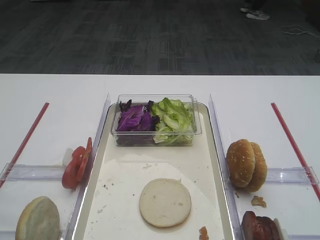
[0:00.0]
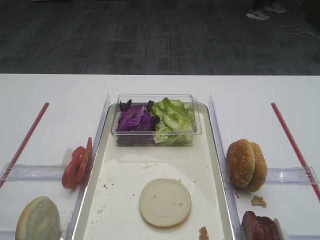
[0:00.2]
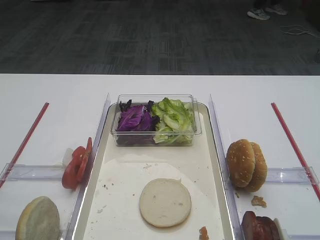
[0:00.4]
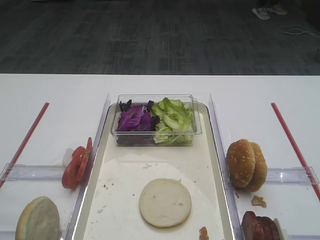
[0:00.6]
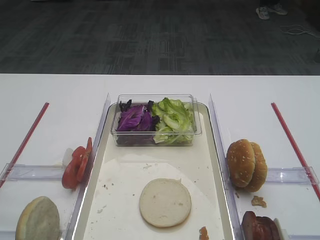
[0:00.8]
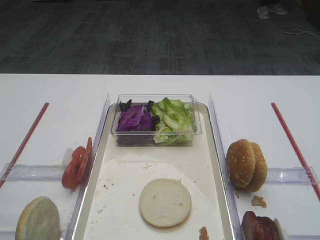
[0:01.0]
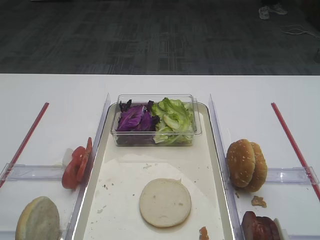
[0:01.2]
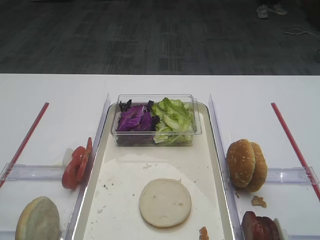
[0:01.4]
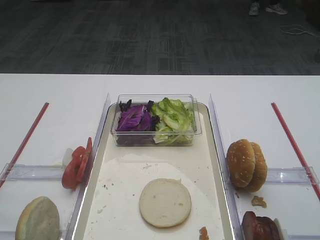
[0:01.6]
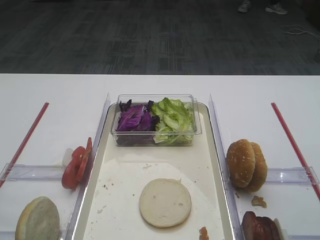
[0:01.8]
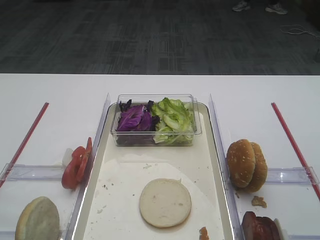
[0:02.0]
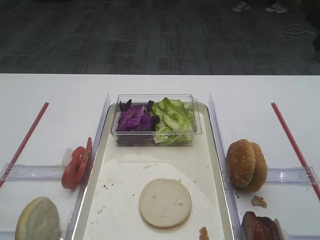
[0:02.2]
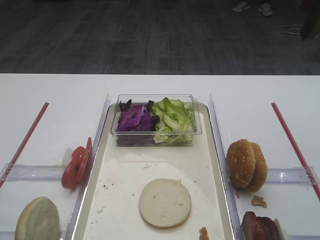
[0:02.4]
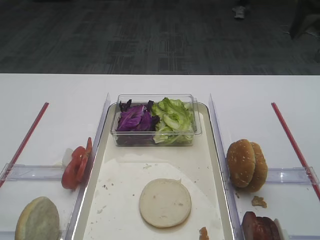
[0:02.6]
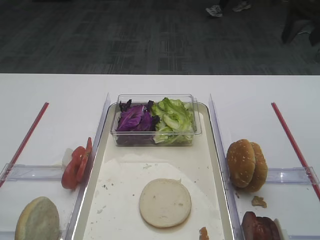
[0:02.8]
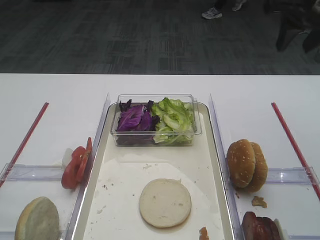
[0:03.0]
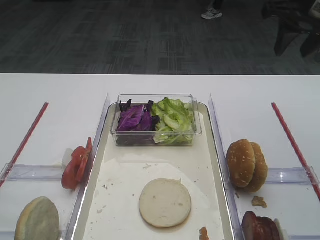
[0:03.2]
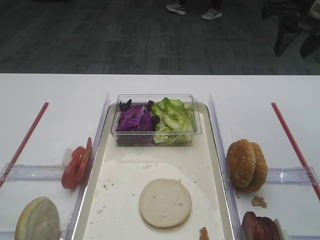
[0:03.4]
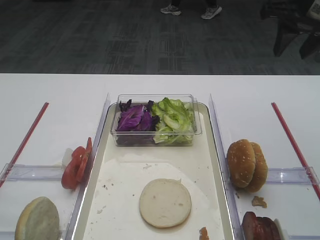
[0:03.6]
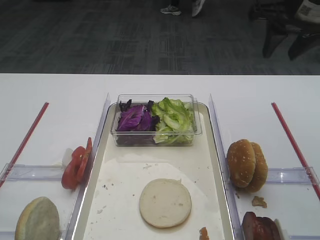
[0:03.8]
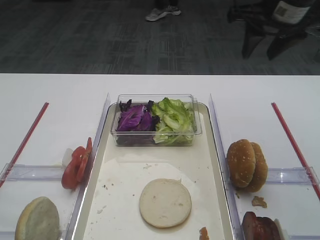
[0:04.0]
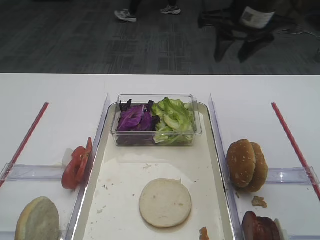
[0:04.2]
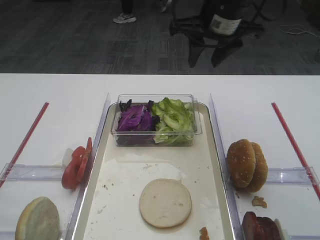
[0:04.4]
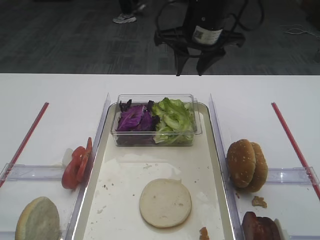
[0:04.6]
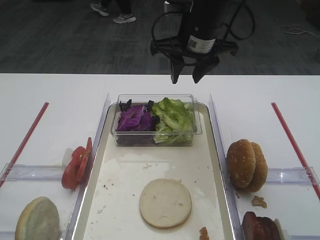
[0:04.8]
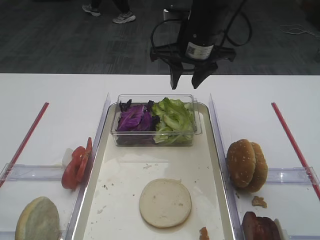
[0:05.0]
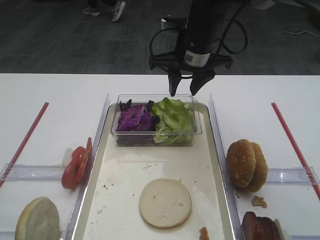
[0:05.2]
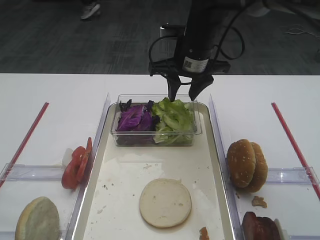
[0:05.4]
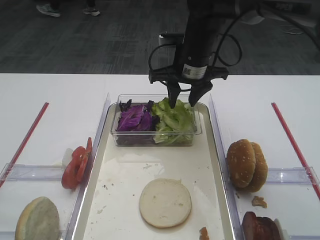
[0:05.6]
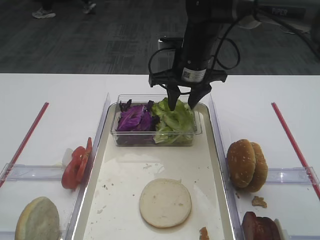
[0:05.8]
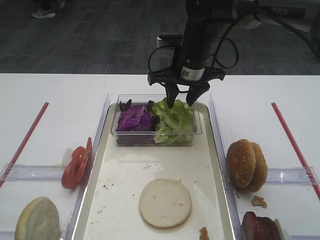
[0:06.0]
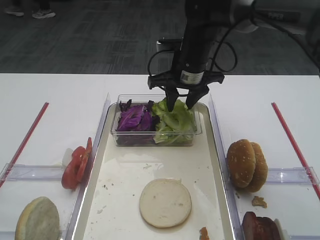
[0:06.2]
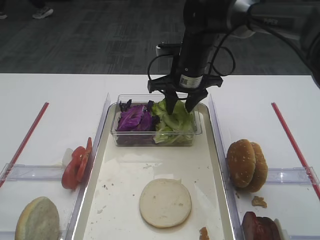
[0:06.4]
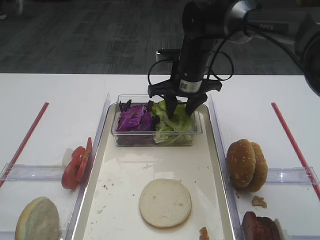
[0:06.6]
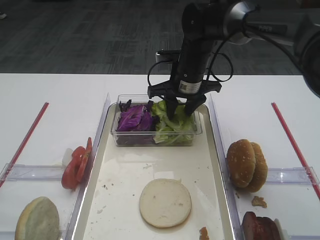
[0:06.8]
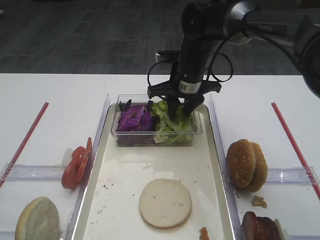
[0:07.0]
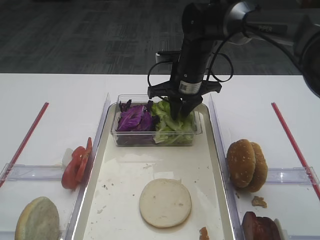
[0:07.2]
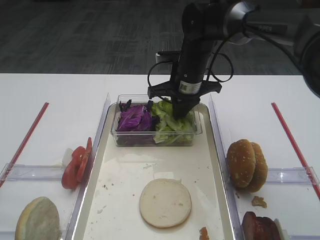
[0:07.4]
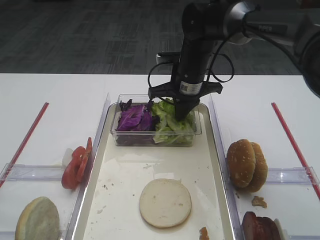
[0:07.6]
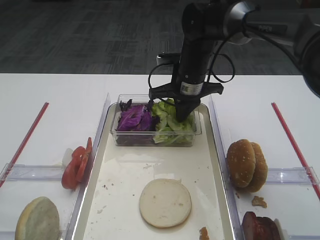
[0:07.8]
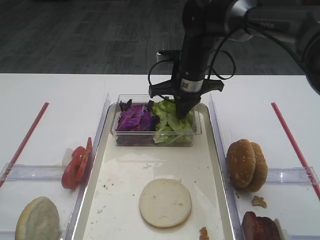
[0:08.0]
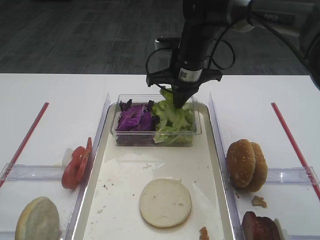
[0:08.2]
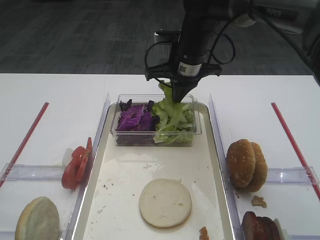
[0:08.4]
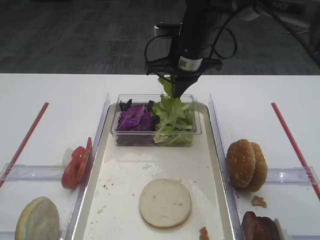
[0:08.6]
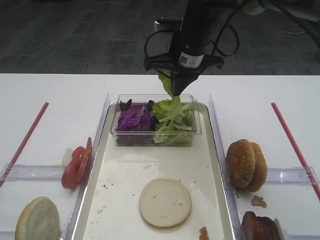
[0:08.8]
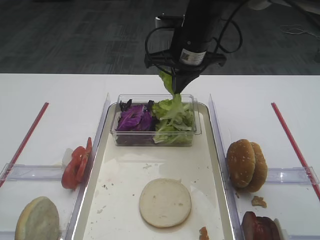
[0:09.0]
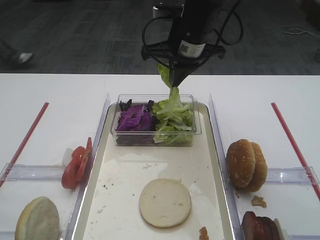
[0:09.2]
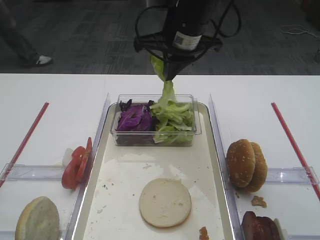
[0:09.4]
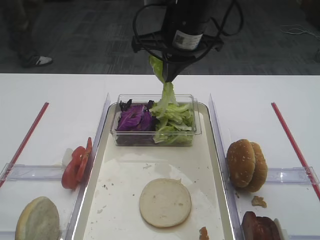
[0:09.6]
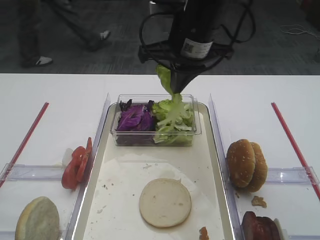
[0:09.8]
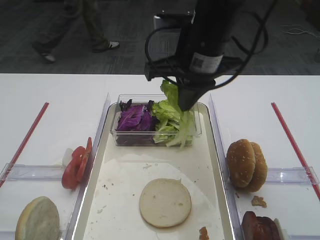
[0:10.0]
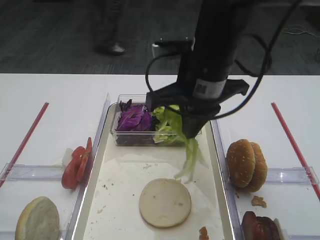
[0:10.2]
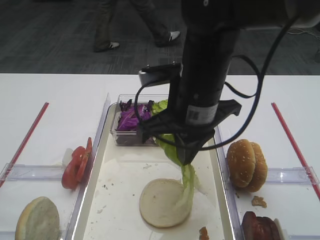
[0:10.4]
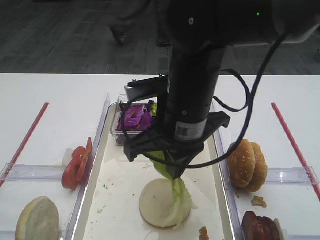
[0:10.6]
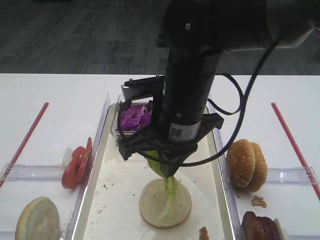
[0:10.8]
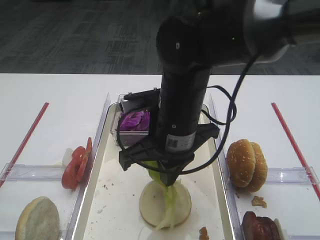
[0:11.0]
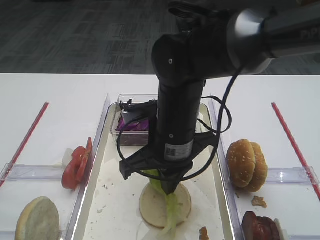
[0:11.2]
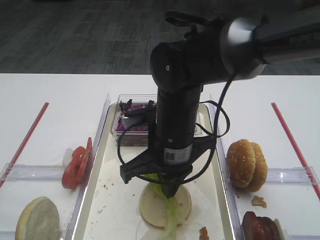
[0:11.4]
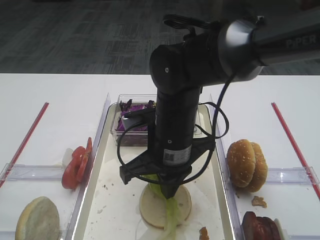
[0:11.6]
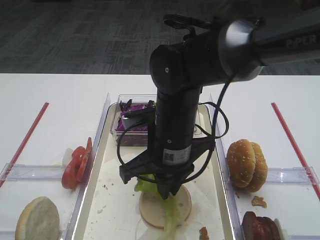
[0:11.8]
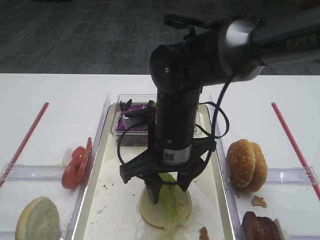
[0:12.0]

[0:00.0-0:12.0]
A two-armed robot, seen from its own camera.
Step, 0:00.0 to 0:08.6: Pick up the lettuce leaf with the right gripper.
0:01.6 to 0:03.0: The right gripper is displaced forward by about 25 cm.
0:03.0 to 0:04.4: The right gripper goes some 15 cm to the left.
0:04.4 to 0:06.0: The right gripper heads downward, covering some 10 cm.
0:06.0 to 0:07.6: The right gripper closes.
0:07.6 to 0:09.0: The right gripper moves upward, about 5 cm.
0:09.0 to 0:10.4: The right gripper goes roughly 15 cm backward.
0:10.4 to 0:12.0: The right gripper heads downward, covering roughly 10 cm, and opens up.

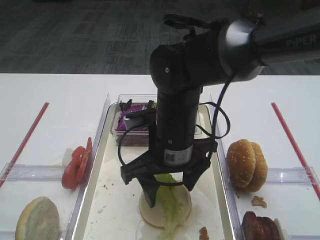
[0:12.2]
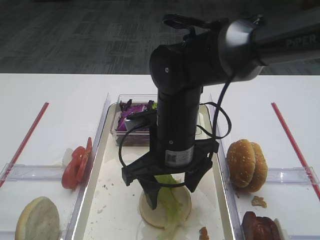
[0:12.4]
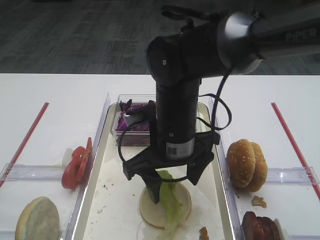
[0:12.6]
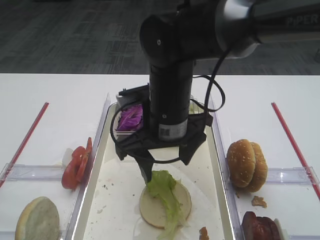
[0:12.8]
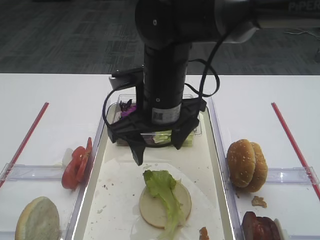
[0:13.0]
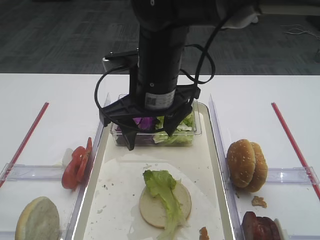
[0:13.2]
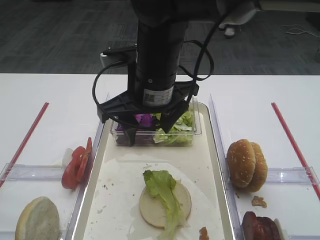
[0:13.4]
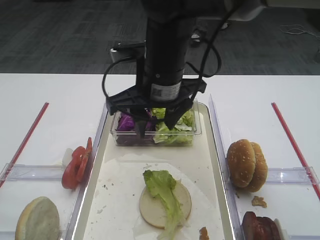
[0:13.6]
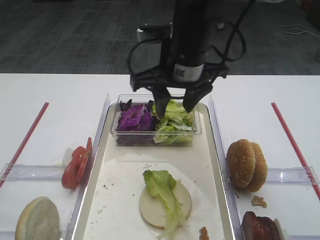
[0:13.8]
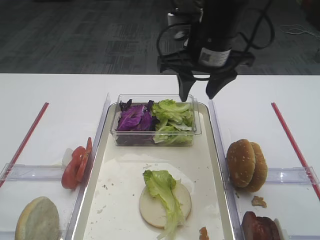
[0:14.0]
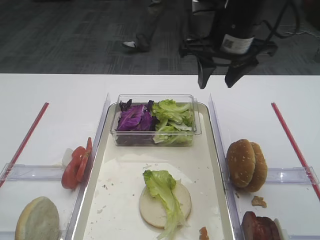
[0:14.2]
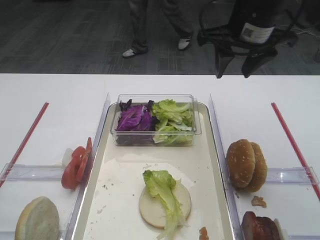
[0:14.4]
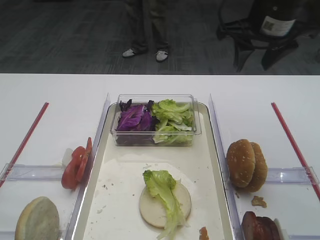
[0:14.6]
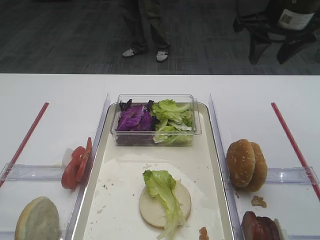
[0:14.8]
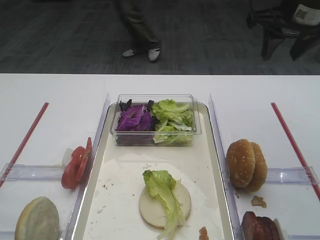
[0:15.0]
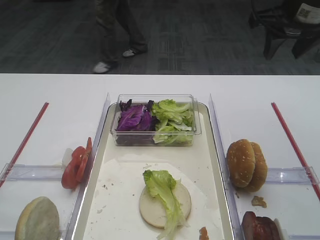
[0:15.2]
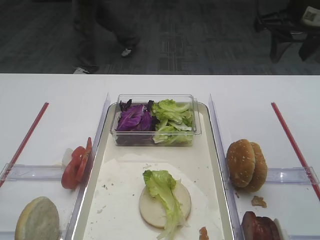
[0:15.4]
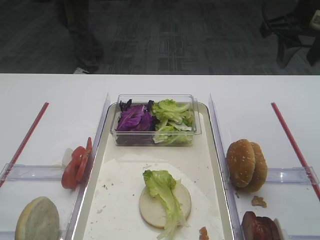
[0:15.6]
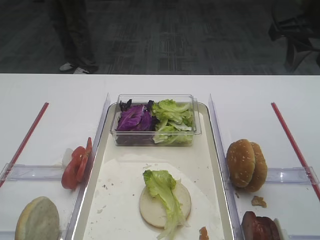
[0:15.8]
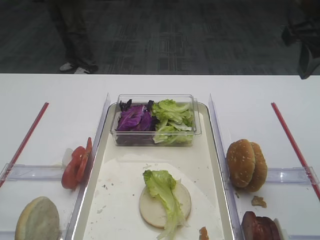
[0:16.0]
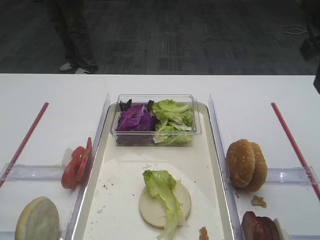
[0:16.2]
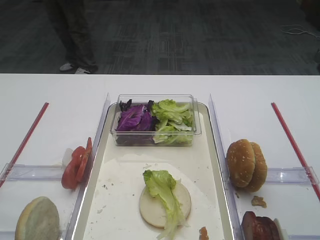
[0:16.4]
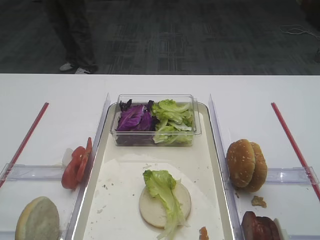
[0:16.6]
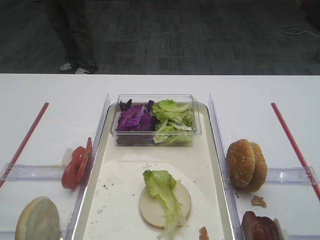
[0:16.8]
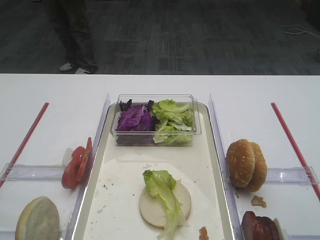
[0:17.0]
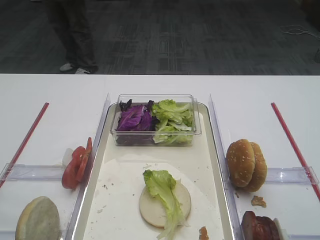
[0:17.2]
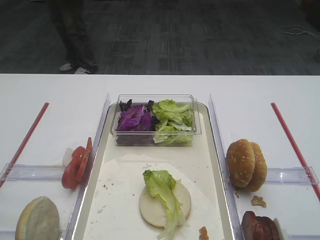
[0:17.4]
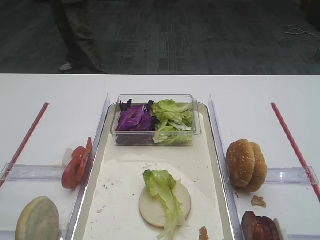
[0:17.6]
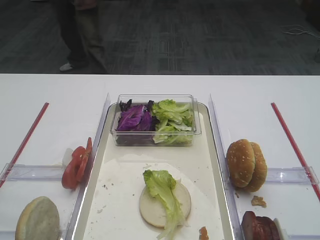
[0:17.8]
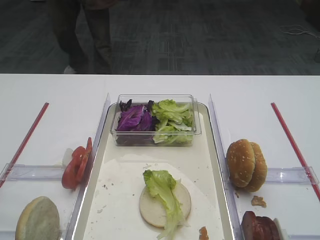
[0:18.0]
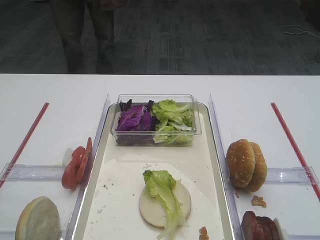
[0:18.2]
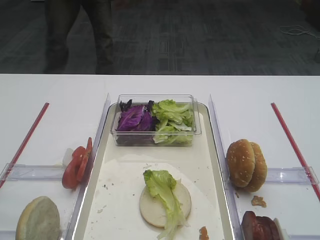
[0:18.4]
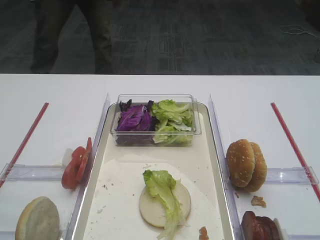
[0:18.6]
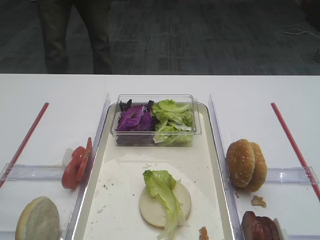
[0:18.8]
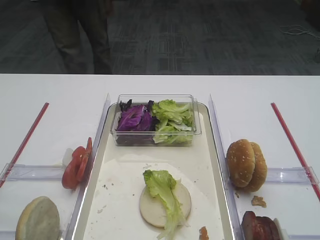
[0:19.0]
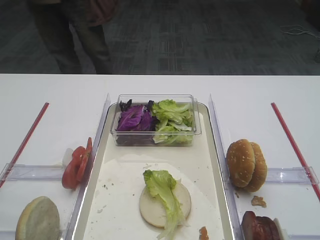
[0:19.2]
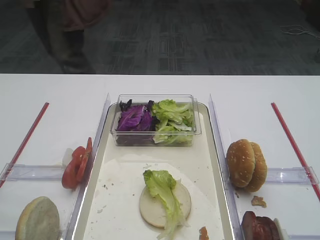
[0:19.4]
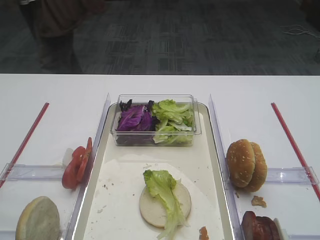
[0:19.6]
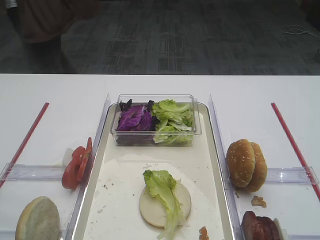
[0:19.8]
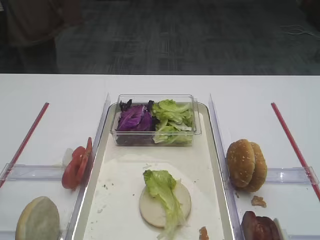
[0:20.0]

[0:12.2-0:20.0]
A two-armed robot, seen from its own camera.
0:12.2 to 0:13.8: The right gripper heads upward and forward, covering roughly 10 cm.
0:13.8 to 0:15.4: The right gripper shifts about 20 cm to the right.
0:15.4 to 0:16.8: The right gripper travels backward by roughly 20 cm.
0:18.4 to 0:20.0: The grippers make only small movements.

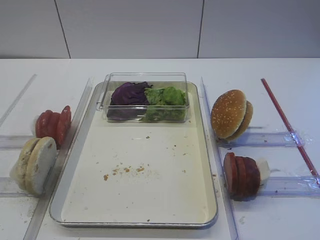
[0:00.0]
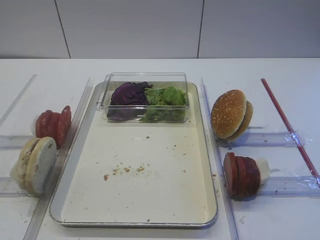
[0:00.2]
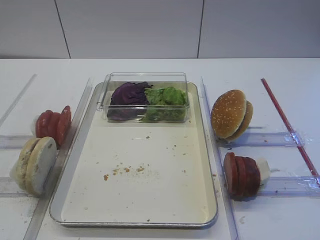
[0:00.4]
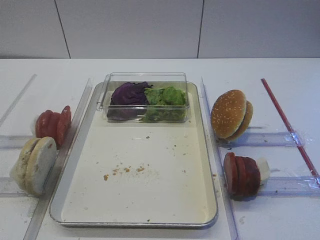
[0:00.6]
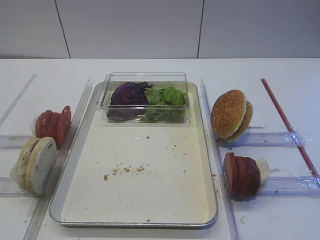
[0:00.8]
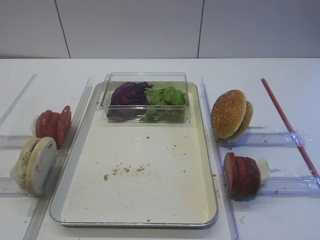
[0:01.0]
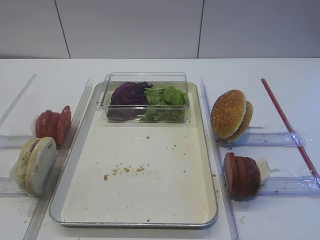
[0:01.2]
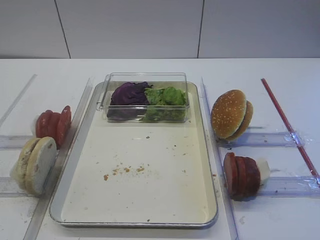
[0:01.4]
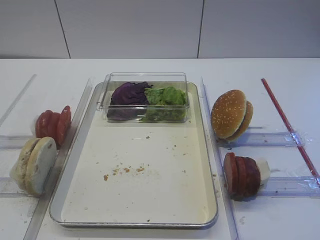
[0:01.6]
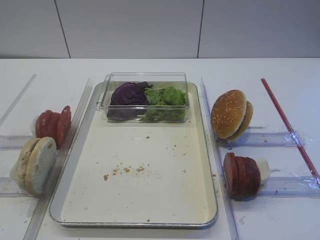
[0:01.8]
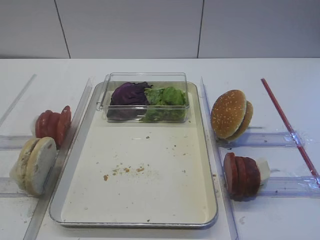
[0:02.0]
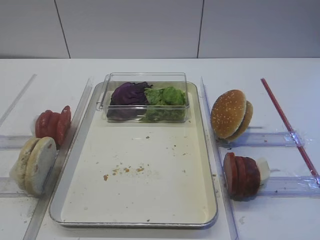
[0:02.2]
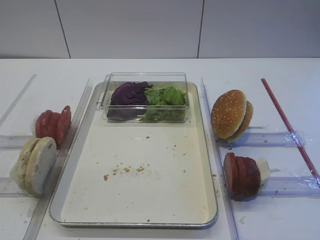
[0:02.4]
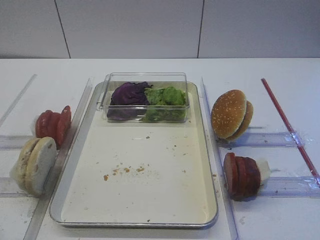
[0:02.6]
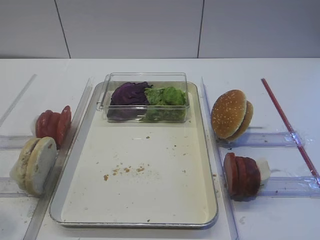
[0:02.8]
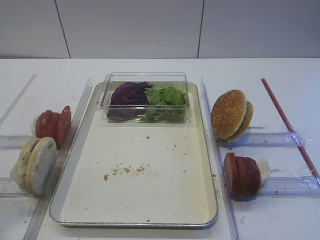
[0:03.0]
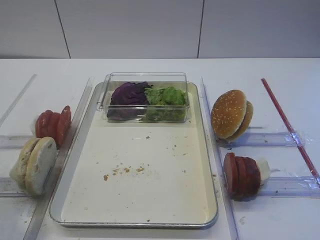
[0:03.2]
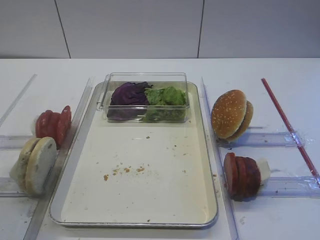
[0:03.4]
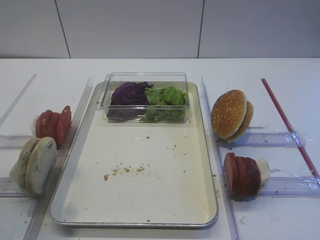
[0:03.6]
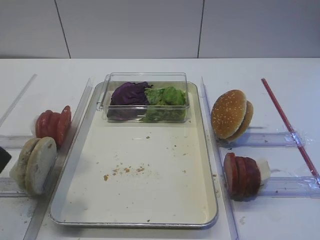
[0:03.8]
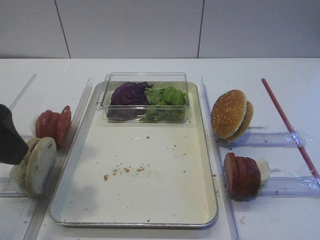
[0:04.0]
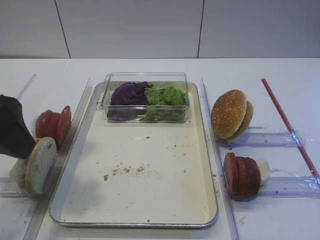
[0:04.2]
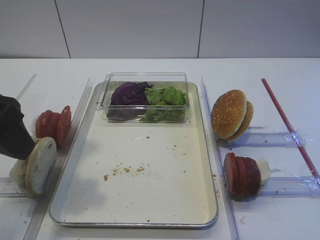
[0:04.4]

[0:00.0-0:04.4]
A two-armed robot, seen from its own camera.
0:01.4 to 0:03.0: The left gripper travels forward and upward by about 10 cm.
0:03.0 to 0:04.4: The left gripper moves forward and to the right, some 10 cm.
